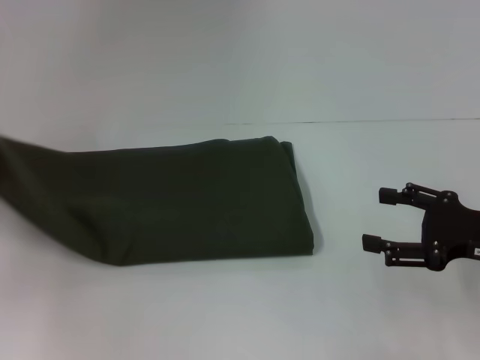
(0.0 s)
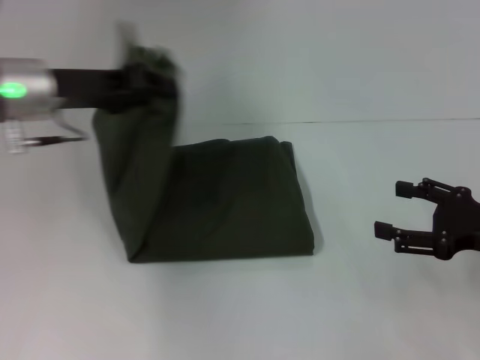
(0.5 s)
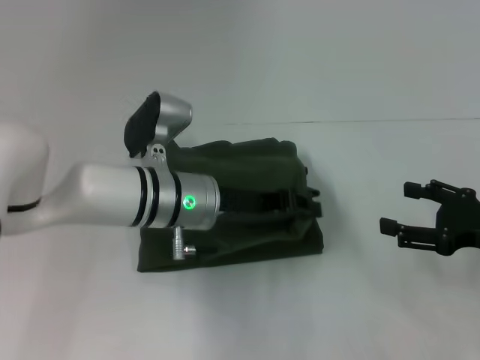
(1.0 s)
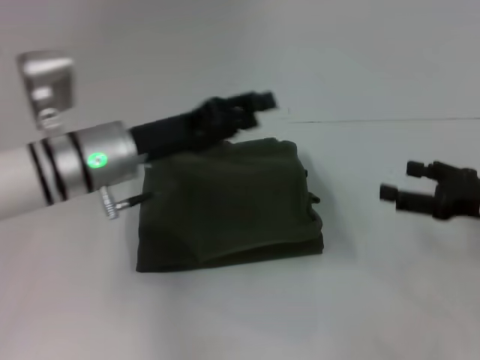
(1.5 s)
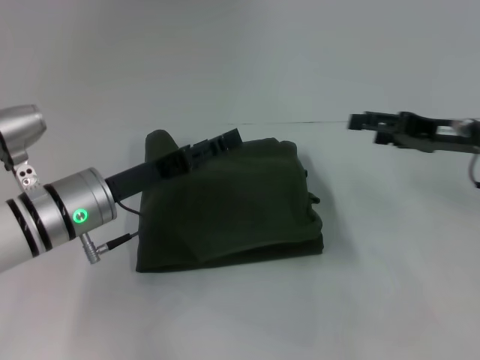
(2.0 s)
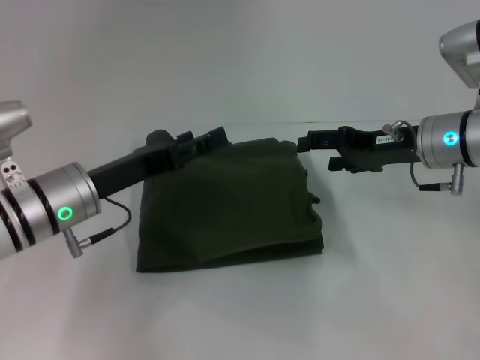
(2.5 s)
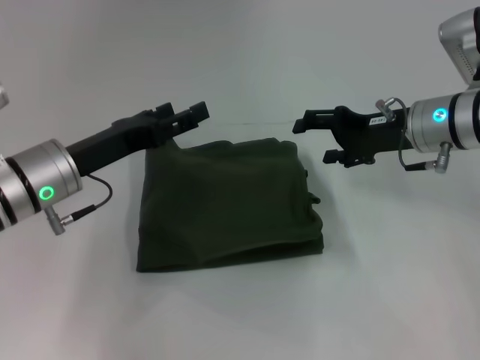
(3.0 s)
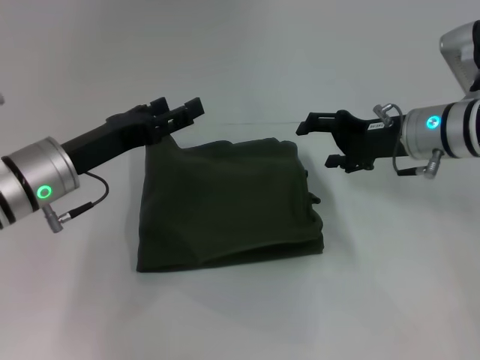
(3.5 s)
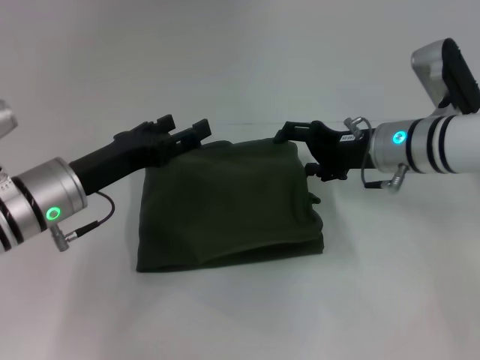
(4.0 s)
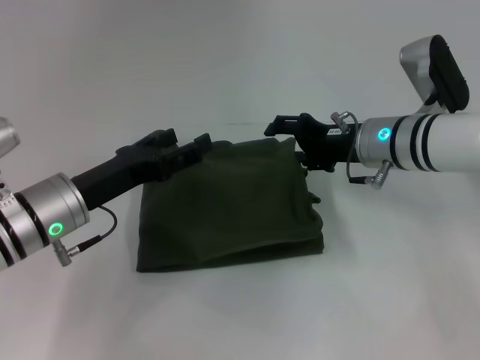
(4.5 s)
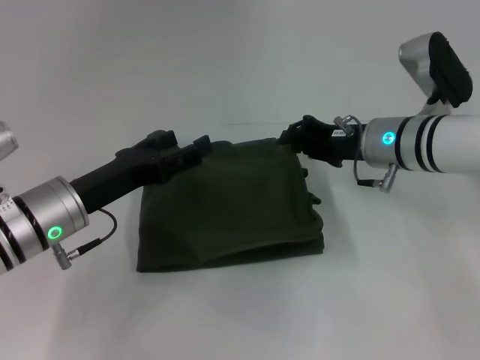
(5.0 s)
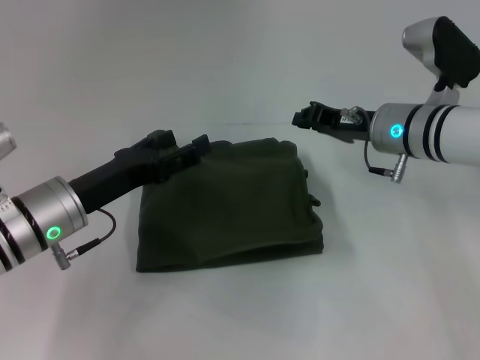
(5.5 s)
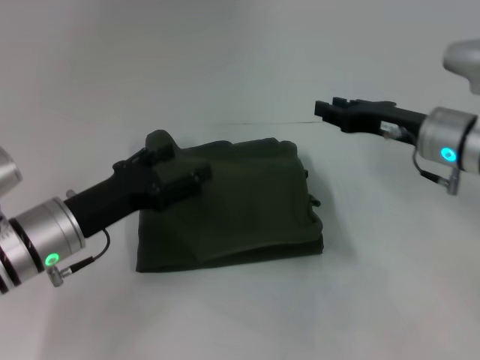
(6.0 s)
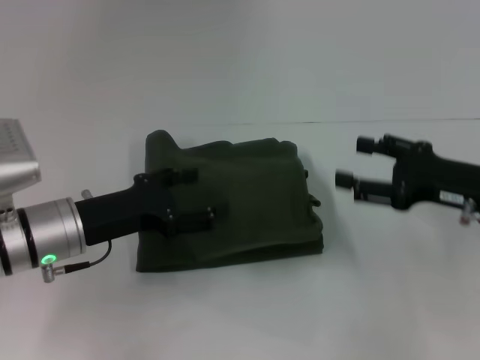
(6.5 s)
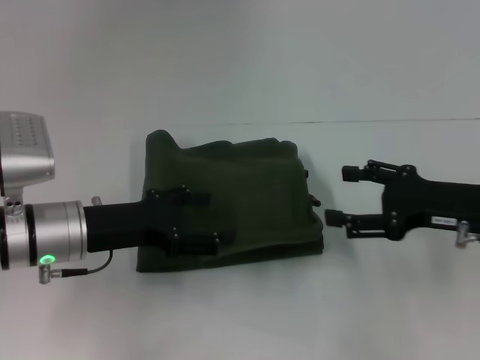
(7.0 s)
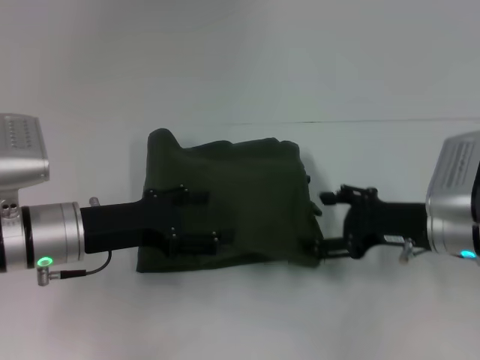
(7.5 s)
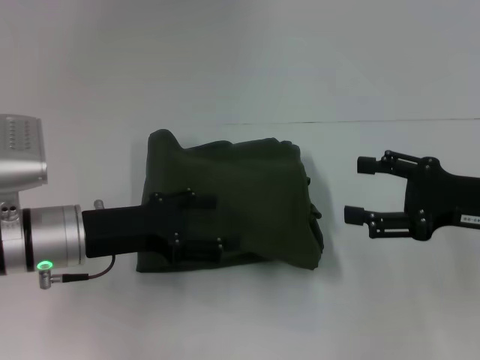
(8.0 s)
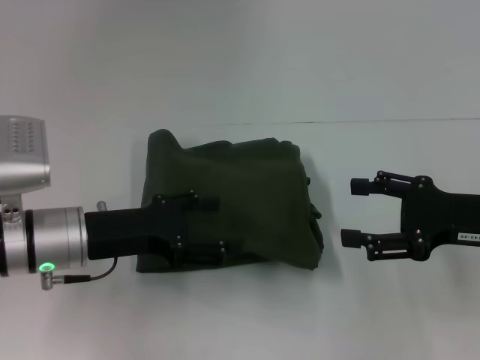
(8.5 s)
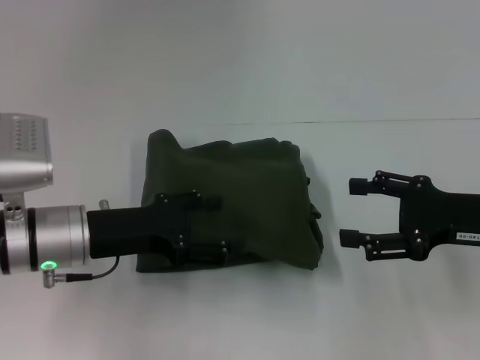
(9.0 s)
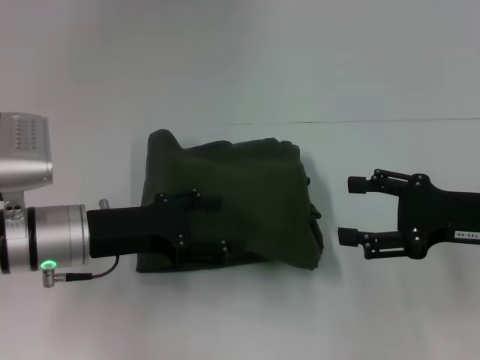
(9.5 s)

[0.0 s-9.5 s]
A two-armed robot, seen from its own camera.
Step, 0.0 to 4.0 s: Fold the clothes with your left hand.
0.0 to 2.0 s: The left gripper goes some 20 cm to the right, and opens up. Meanwhile the right gripper goes approximately 10 cm forward.
2.0 to 4.0 s: The right gripper moves to the left, about 10 cm.
4.0 to 5.5 s: The right gripper closes up.
5.5 to 7.5 s: The right gripper heads backward and to the right, covering some 10 cm, and opens.
7.5 to 9.5 s: The right gripper moves approximately 10 cm.

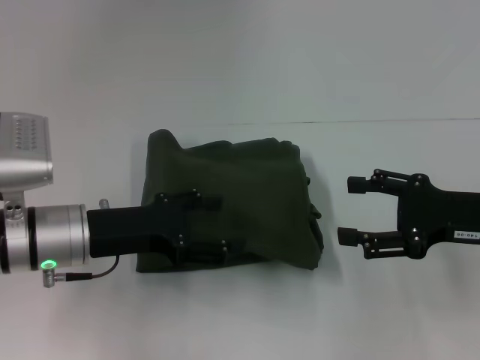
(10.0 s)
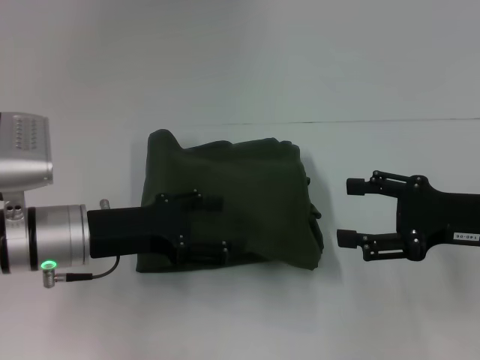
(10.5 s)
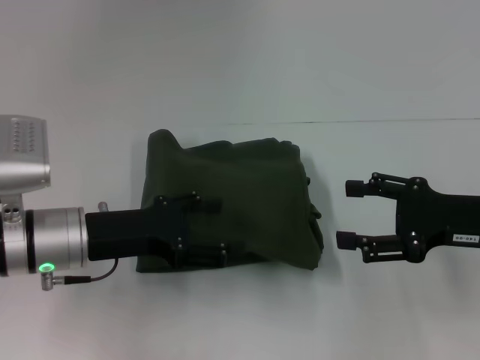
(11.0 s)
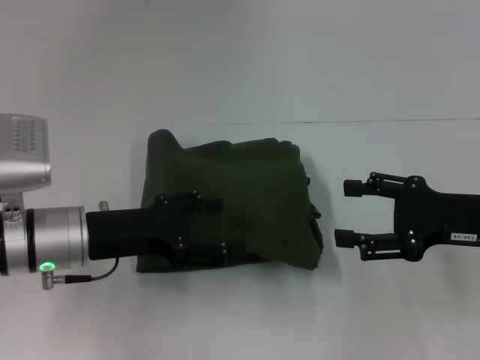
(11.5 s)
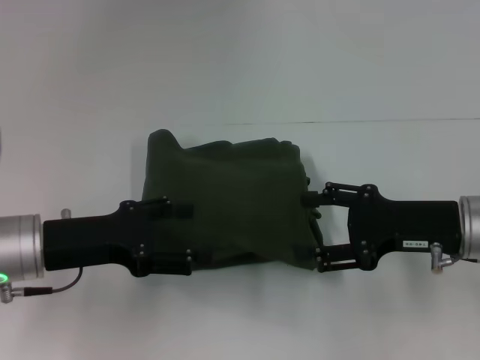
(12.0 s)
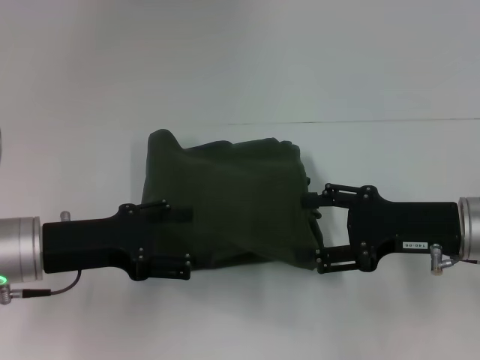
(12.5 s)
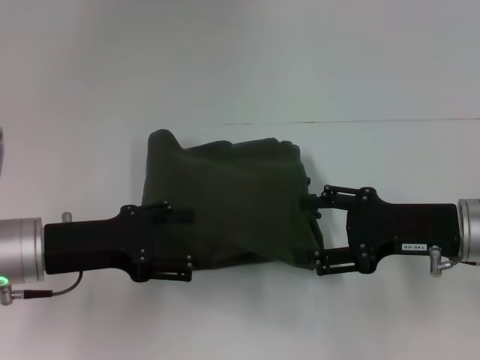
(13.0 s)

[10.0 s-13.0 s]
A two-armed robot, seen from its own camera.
10.0 to 11.5 s: The two grippers keep their place.
11.5 to 13.0 s: The grippers stay close to where they were, moving slightly.

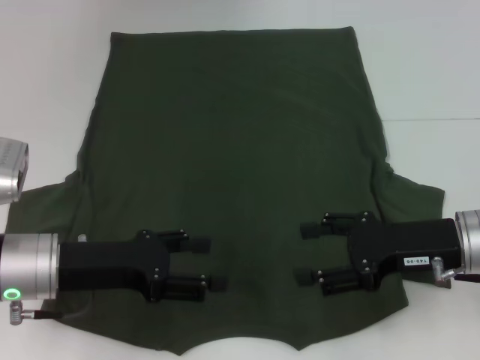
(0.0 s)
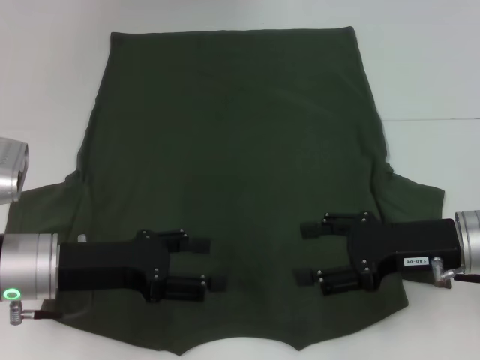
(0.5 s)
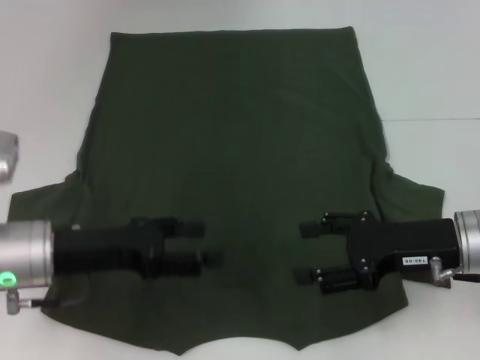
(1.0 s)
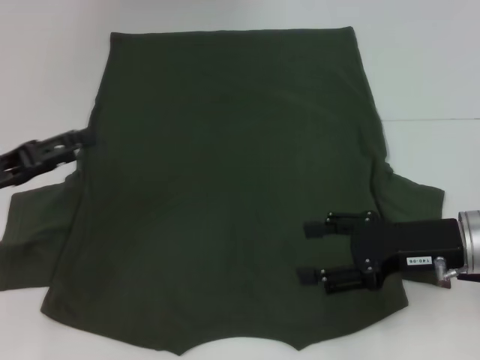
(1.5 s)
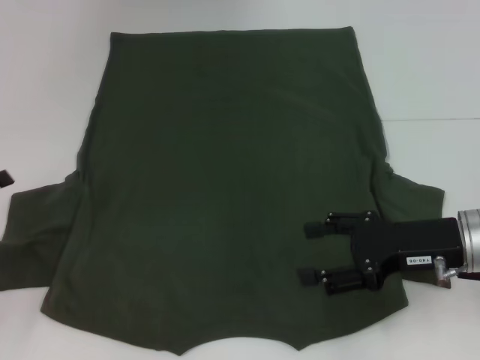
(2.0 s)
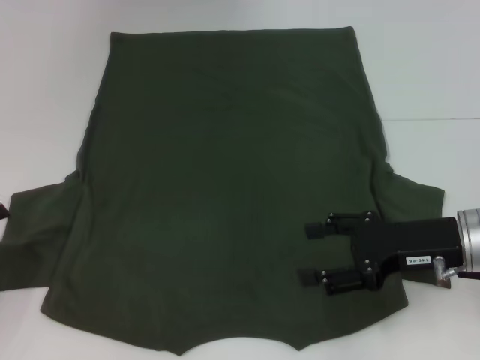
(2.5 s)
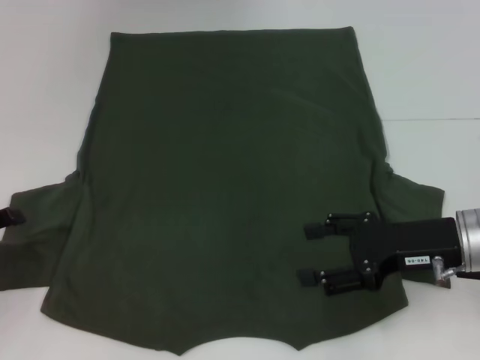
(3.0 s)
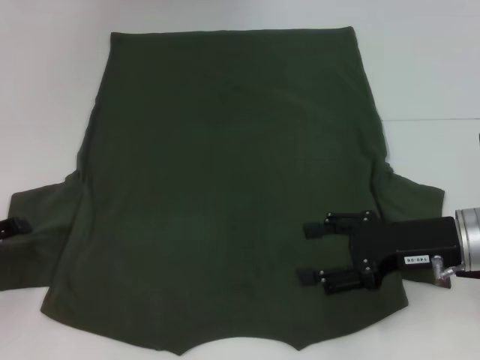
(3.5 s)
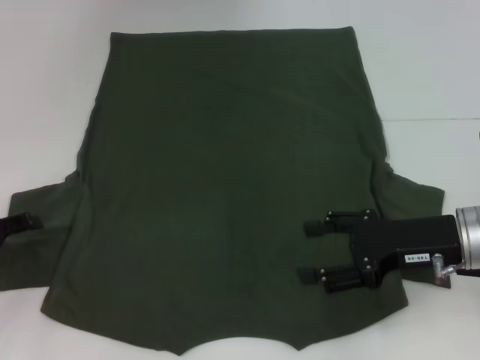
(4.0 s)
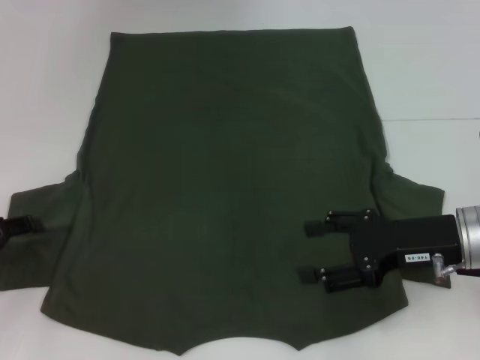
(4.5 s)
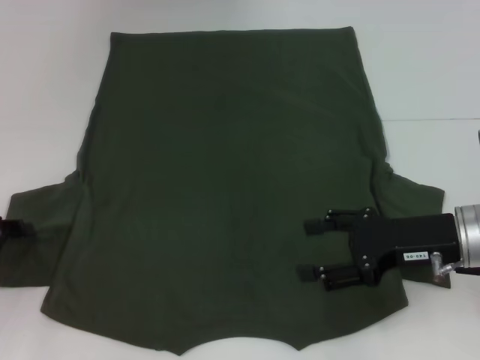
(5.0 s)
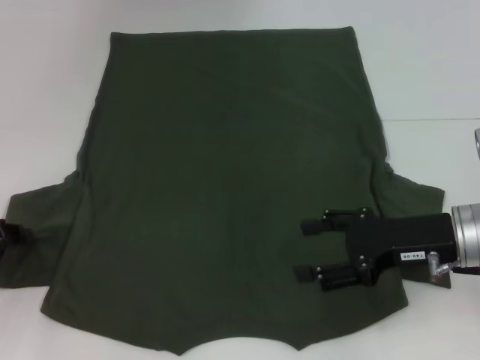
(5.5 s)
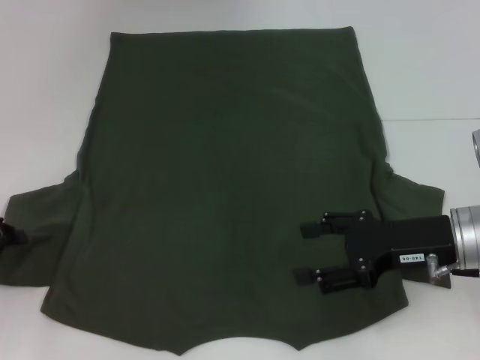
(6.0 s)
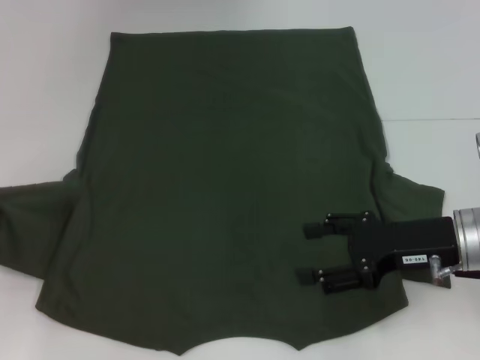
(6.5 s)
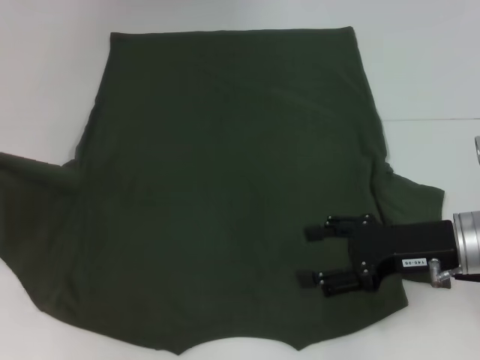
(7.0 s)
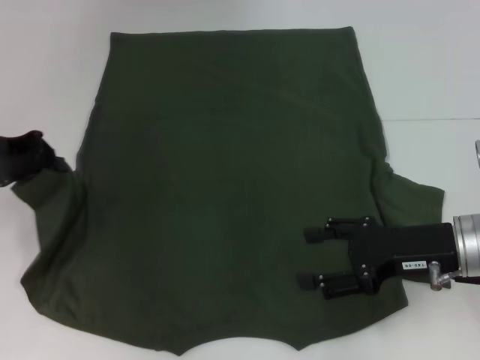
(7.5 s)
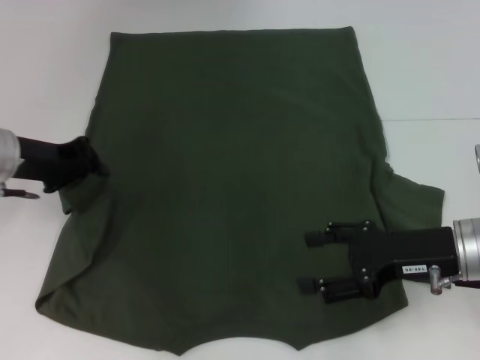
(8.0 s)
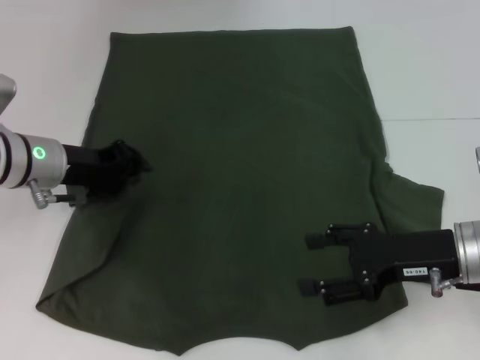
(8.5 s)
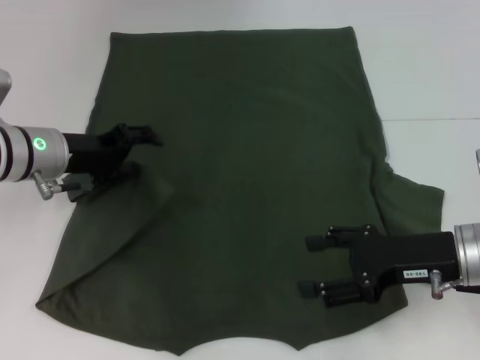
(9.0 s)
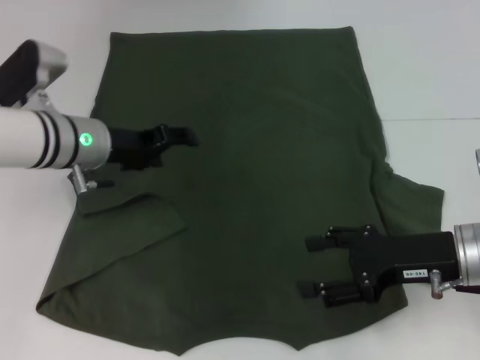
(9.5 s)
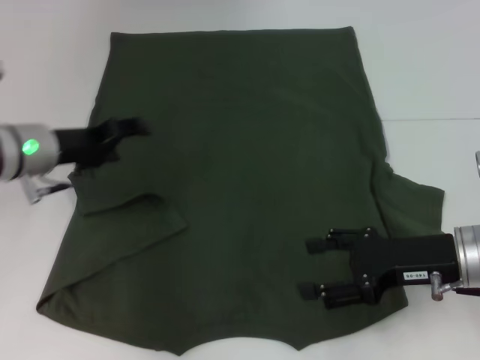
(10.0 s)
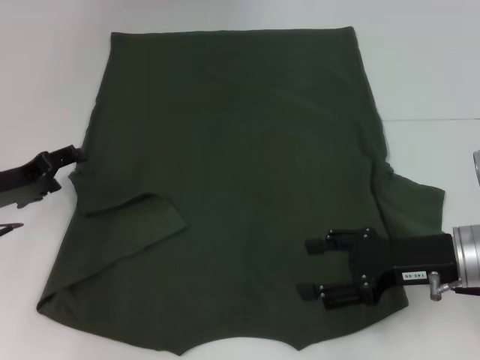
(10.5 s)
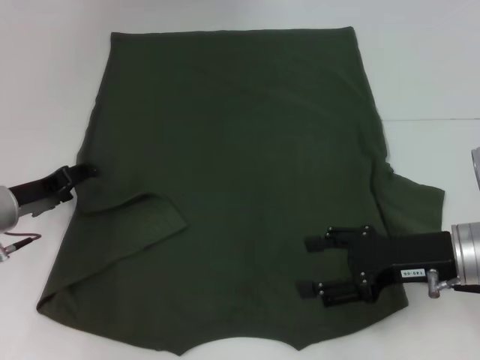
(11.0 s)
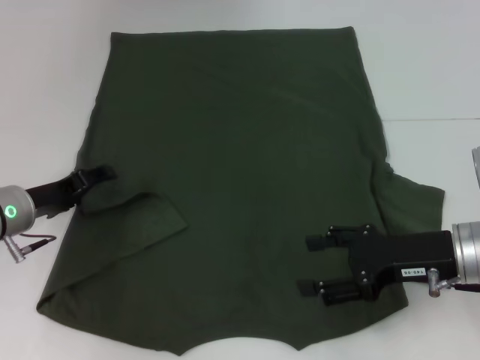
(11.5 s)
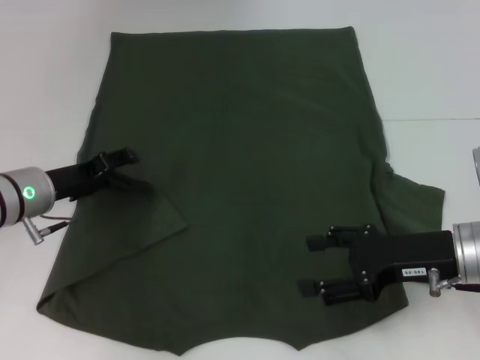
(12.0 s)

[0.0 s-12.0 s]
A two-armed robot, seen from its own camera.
0.0 to 2.0 s: The left gripper moves to the left, roughly 15 cm.
2.0 to 4.0 s: The grippers stay close to where they were, moving slightly.
4.0 to 6.0 s: The left gripper closes.
6.0 to 8.0 s: The left gripper moves forward, to the right and upward, about 15 cm.
8.0 to 10.0 s: The left gripper opens its fingers.
10.0 to 12.0 s: The left gripper heads downward, covering approximately 5 cm.

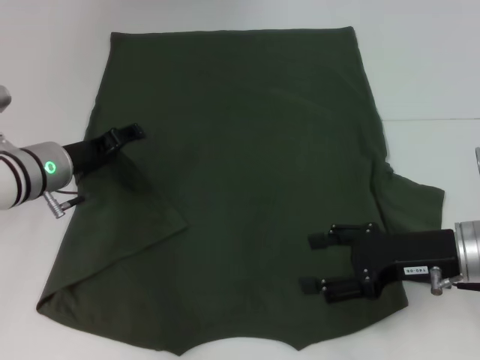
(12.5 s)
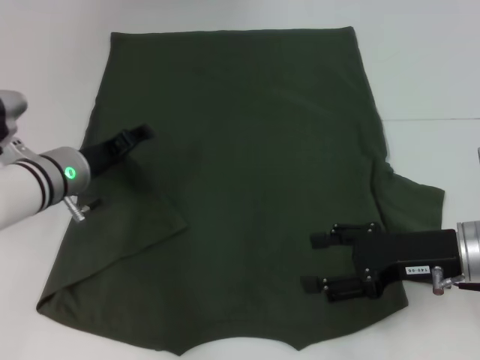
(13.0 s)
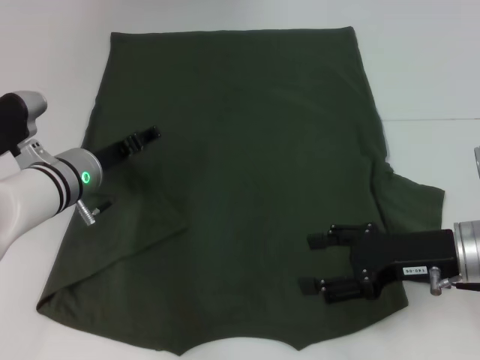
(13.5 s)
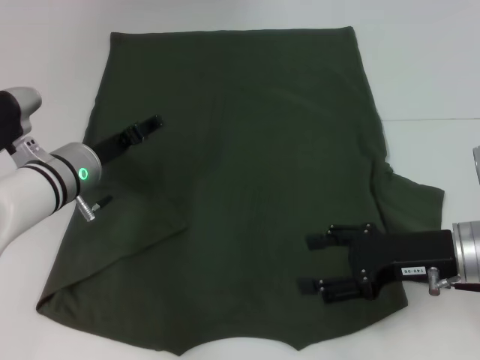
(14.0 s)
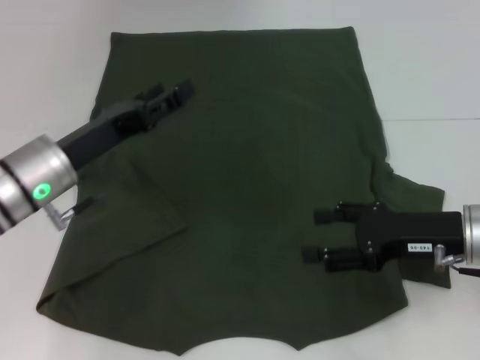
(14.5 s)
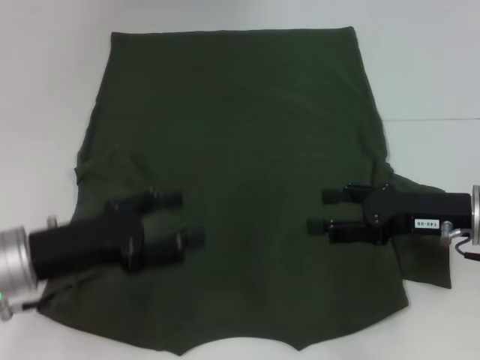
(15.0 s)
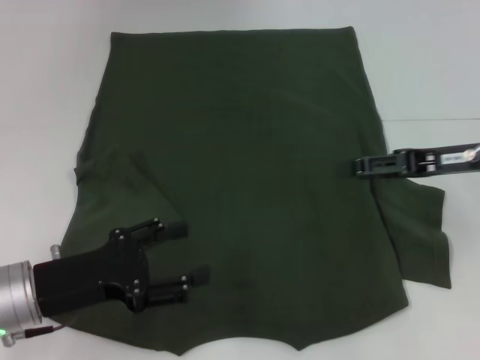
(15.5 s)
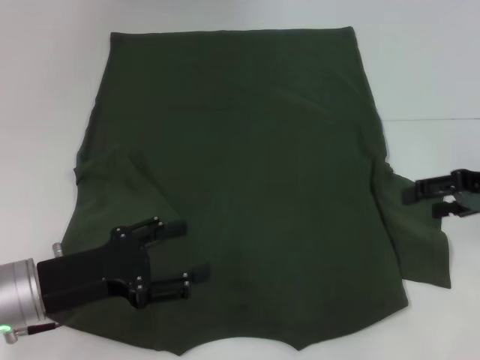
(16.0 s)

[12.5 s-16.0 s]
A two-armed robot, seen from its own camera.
12.5 to 14.5 s: The left gripper moves backward, about 5 cm.
14.5 to 16.0 s: The right gripper travels to the right and upward by some 10 cm, while the left gripper heads backward, covering about 10 cm.
